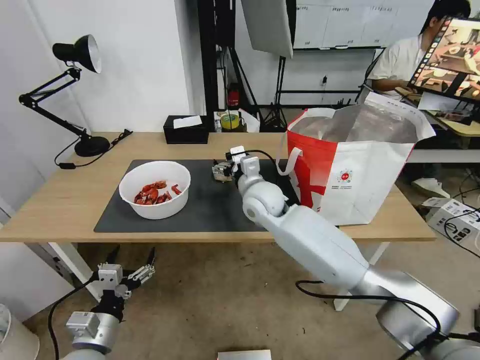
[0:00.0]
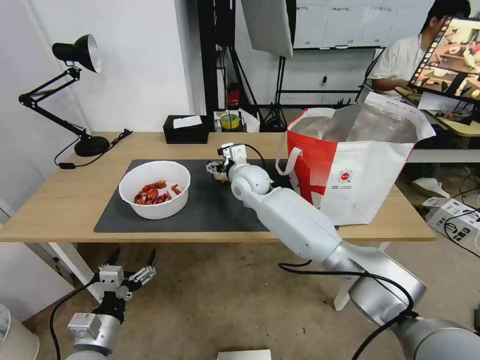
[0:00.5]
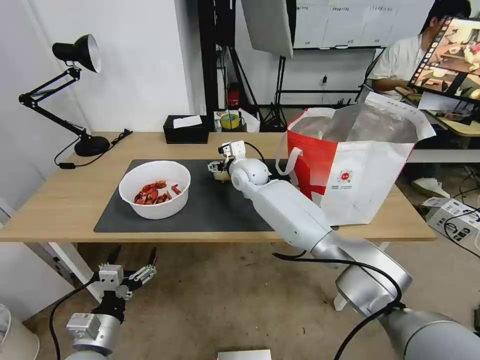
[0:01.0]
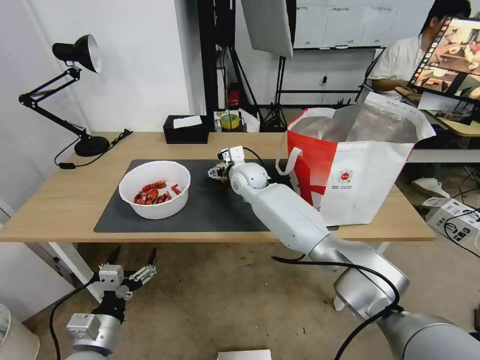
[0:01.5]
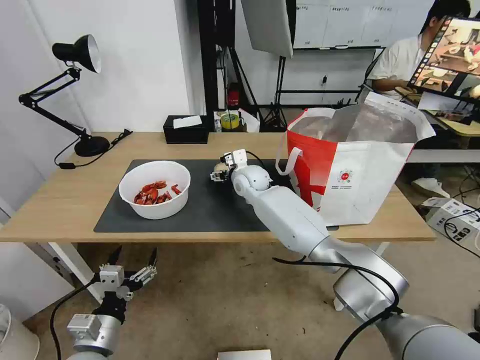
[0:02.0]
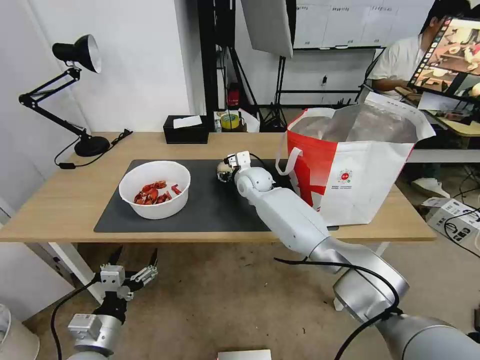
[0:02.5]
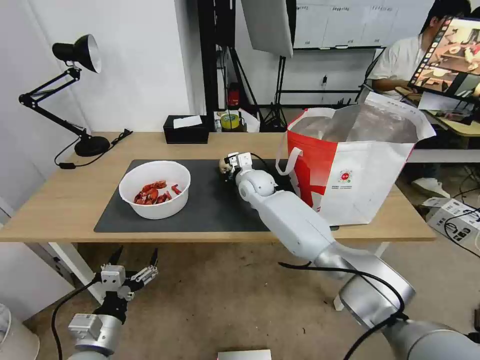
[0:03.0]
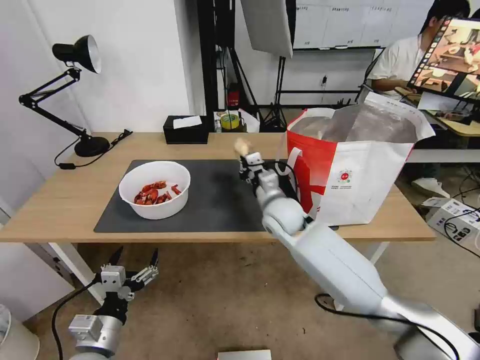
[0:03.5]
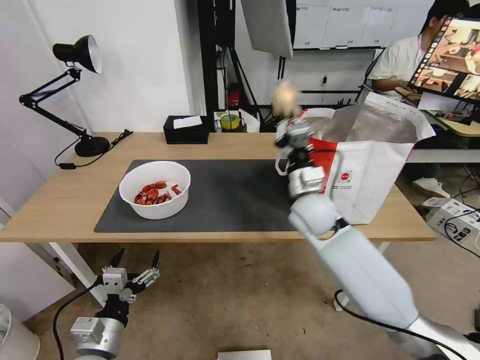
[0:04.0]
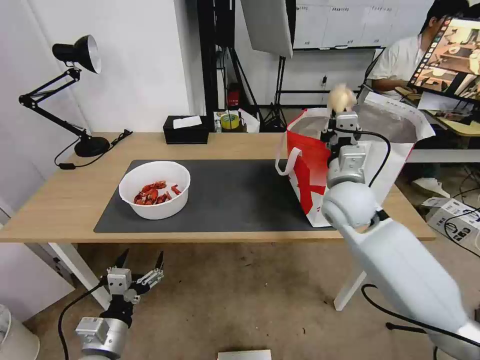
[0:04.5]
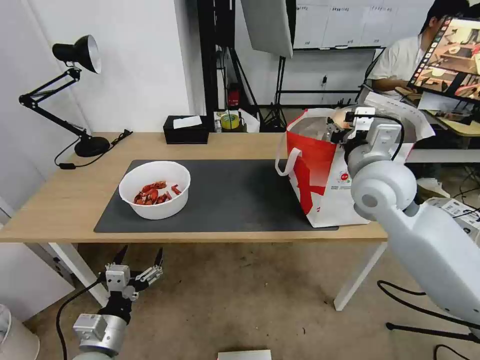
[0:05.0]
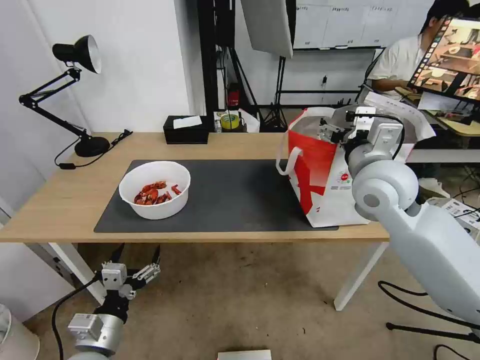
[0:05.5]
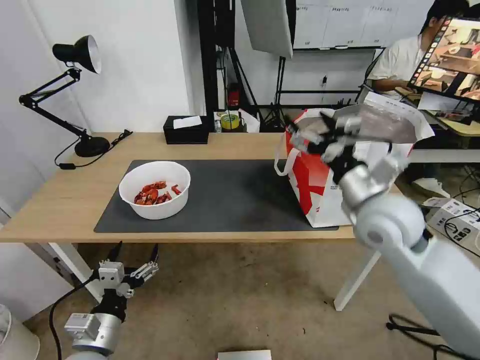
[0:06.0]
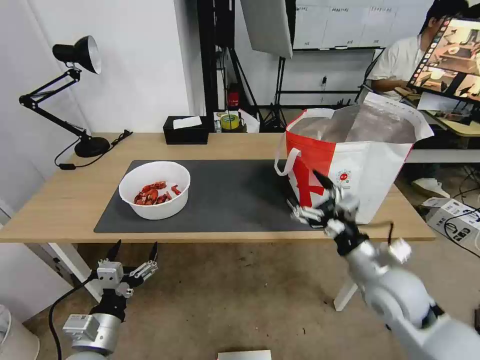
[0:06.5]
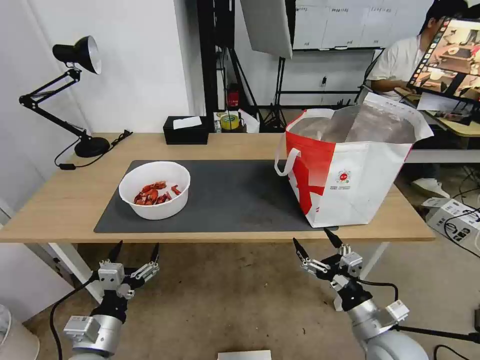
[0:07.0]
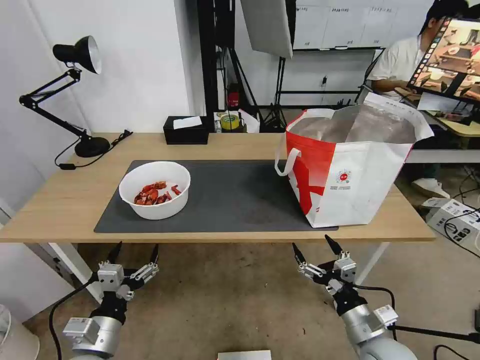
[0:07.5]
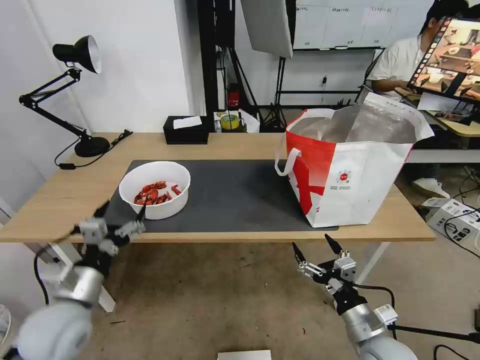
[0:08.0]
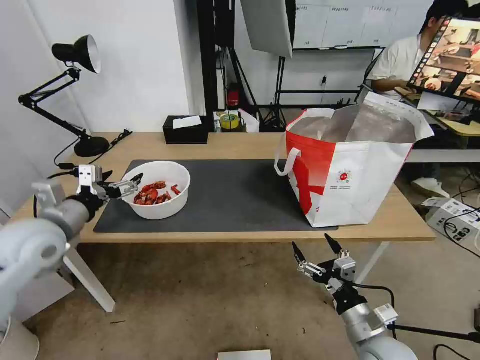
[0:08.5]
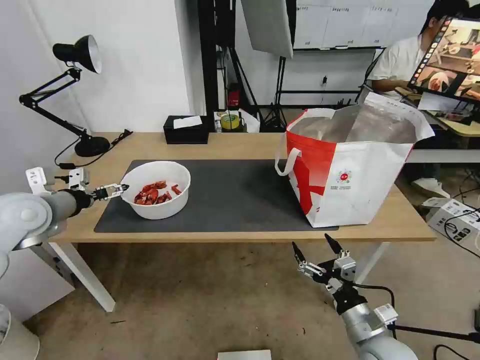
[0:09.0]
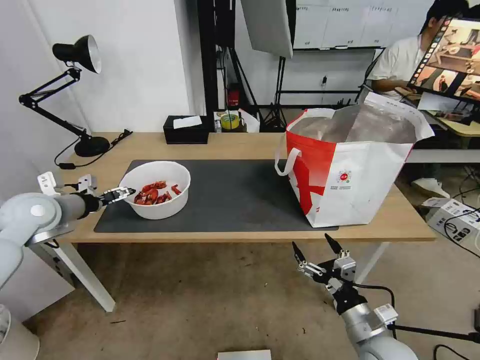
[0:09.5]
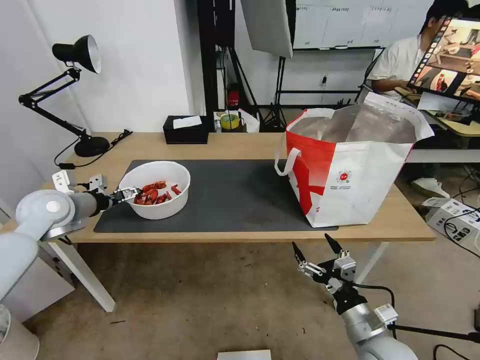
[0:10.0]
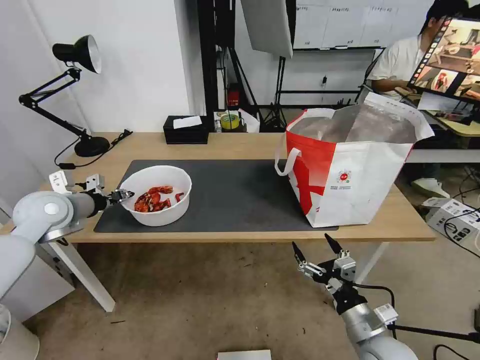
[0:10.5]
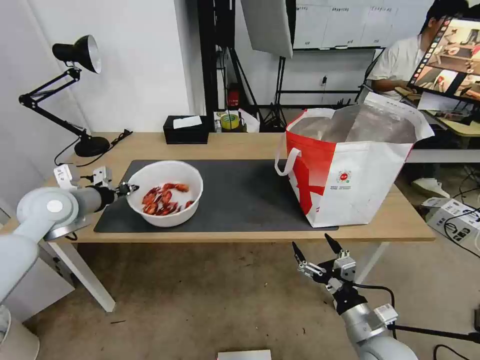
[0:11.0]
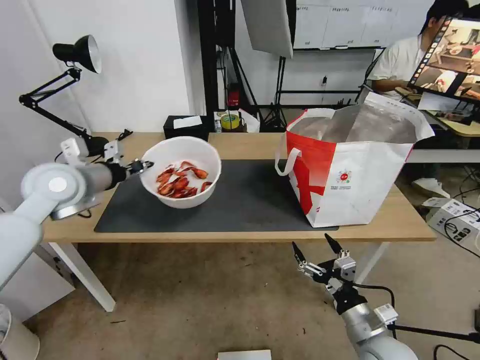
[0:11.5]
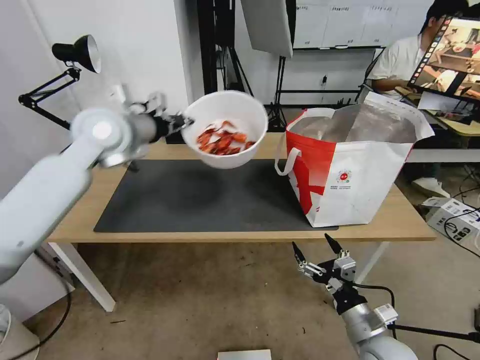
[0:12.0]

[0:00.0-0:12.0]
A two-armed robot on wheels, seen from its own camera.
Task of the whole recording: Pick up the trash from the table and place it into the takeout bag.
0:00.0 to 0:02.0: The right gripper shifts about 10 cm forward.
0:02.0 to 0:04.0: The right gripper moves backward and to the right, approximately 20 cm, and closes its fingers.
0:04.0 to 0:06.0: The right gripper heads to the right, upward and backward, covering some 15 cm, and opens its fingers.
0:06.0 to 0:08.0: The left gripper moves upward and forward, about 10 cm; the right gripper goes some 30 cm downward and backward.
0:08.0 to 0:10.0: The left gripper heads forward, to the left and upward, covering roughly 25 cm.
0:10.0 to 0:12.0: The left gripper is displaced to the right and upward by approximately 25 cm, and closes up.

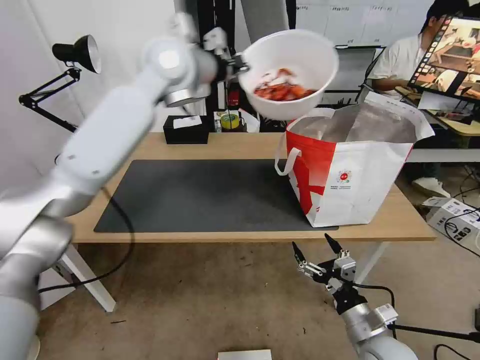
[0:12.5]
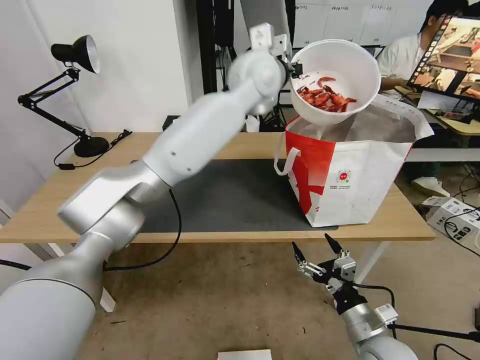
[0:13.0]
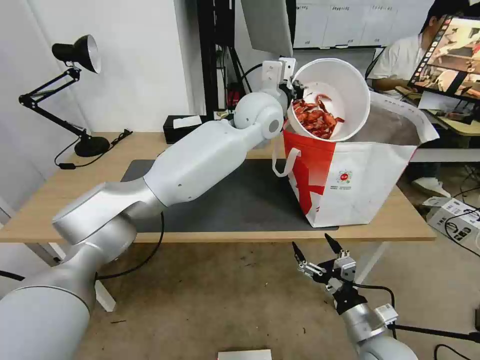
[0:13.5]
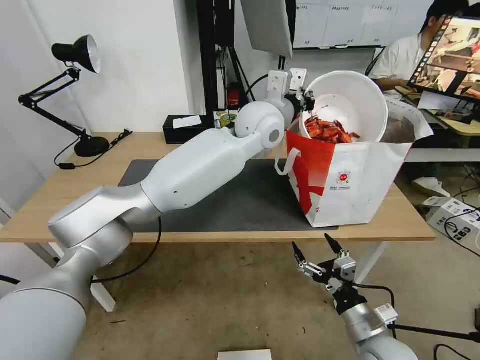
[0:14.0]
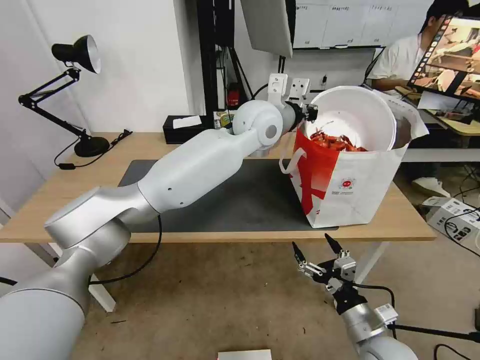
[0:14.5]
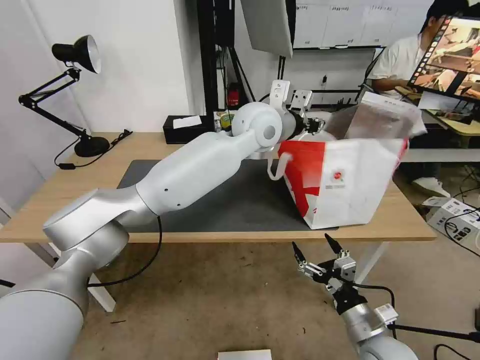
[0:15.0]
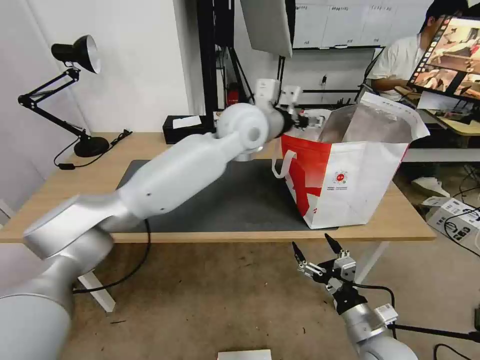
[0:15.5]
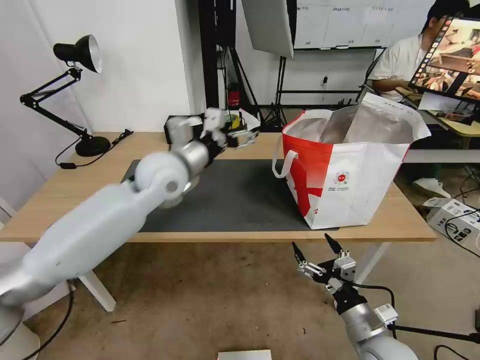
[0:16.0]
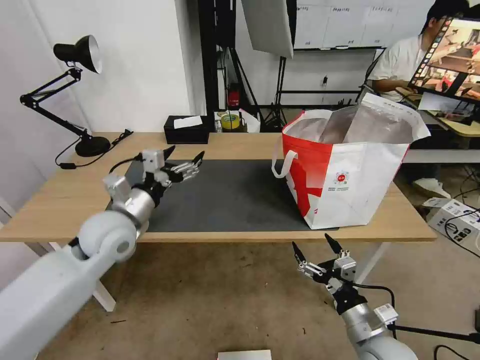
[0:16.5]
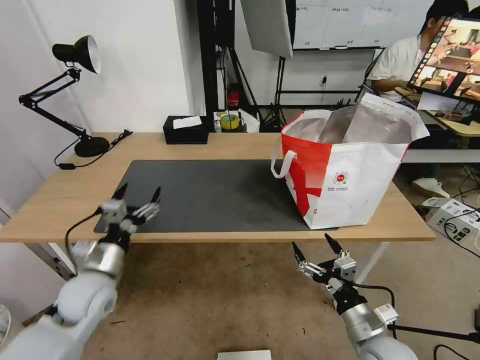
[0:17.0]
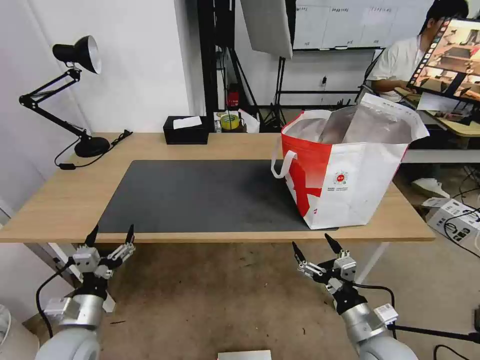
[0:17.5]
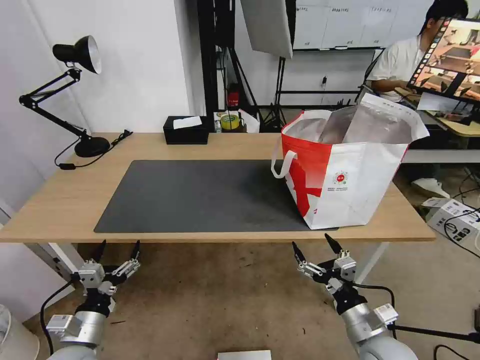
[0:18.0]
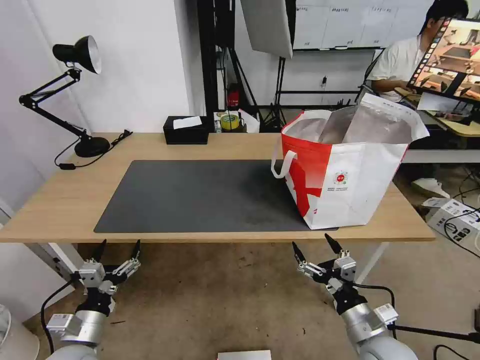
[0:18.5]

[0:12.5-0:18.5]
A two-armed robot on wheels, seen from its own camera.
Task of the whole recording: Pick up the trash from the table and place it into the takeout bag.
0:12.5 to 0:14.5: The left gripper travels to the right and downward by roughly 15 cm.
0:14.5 to 0:16.5: The left gripper travels to the left, downward and backward by roughly 35 cm, and opens up.
0:16.5 to 0:18.5: The left gripper travels backward, downward and to the left by roughly 30 cm.
